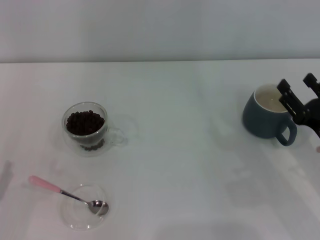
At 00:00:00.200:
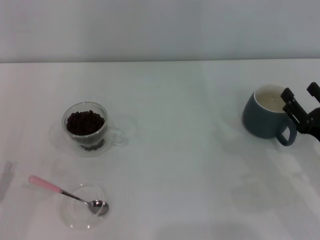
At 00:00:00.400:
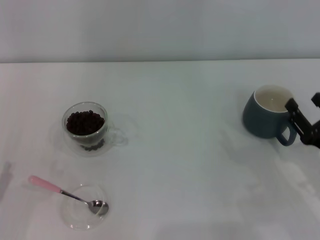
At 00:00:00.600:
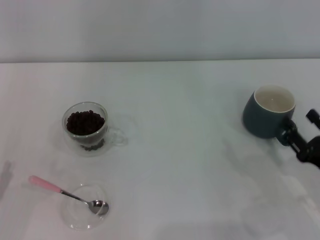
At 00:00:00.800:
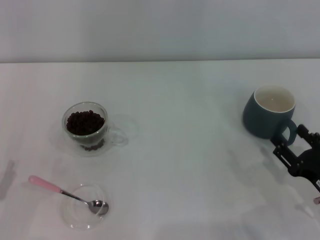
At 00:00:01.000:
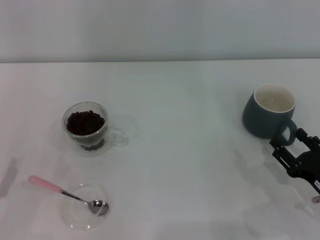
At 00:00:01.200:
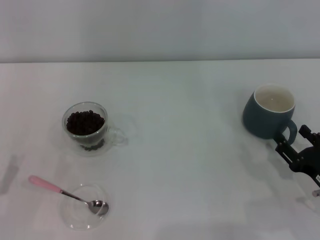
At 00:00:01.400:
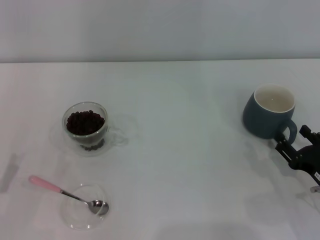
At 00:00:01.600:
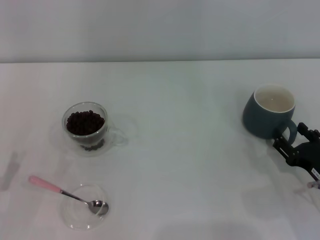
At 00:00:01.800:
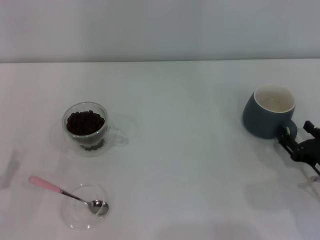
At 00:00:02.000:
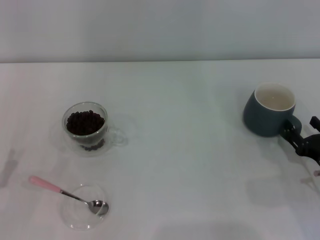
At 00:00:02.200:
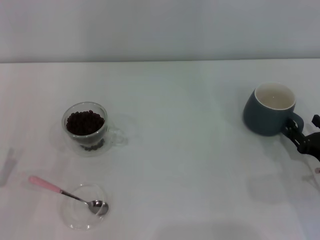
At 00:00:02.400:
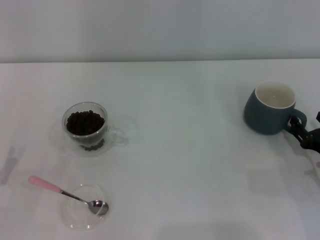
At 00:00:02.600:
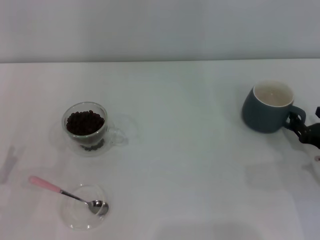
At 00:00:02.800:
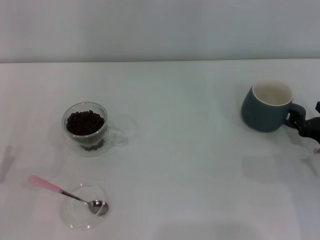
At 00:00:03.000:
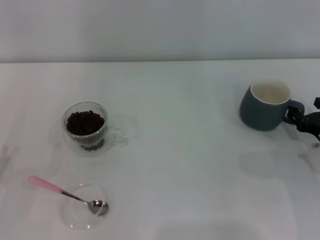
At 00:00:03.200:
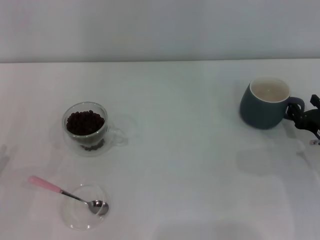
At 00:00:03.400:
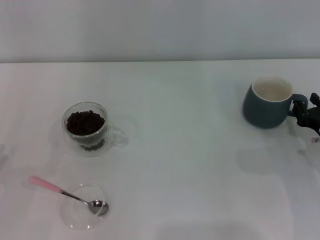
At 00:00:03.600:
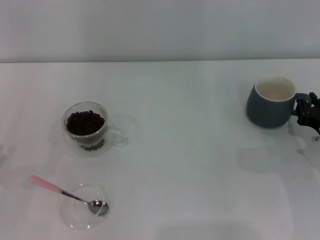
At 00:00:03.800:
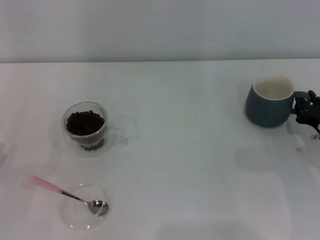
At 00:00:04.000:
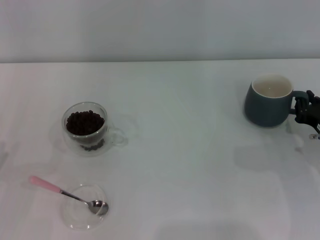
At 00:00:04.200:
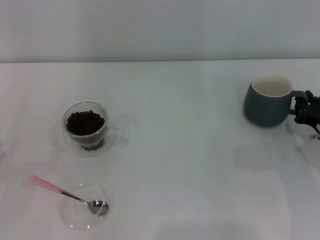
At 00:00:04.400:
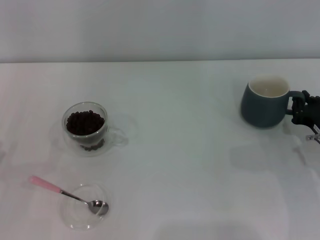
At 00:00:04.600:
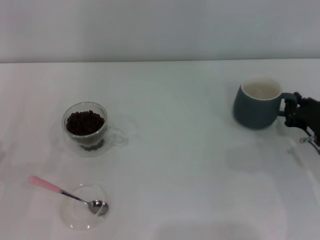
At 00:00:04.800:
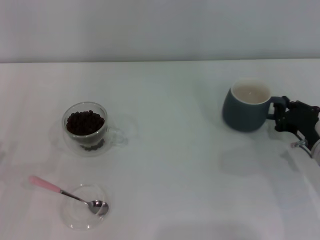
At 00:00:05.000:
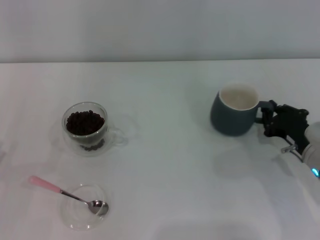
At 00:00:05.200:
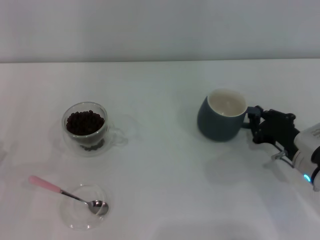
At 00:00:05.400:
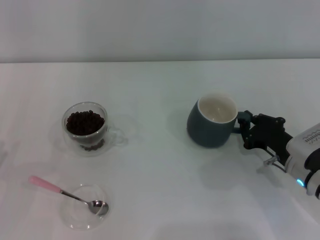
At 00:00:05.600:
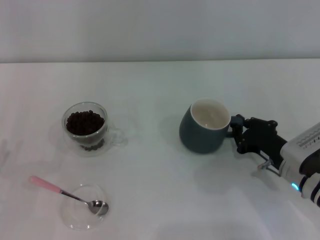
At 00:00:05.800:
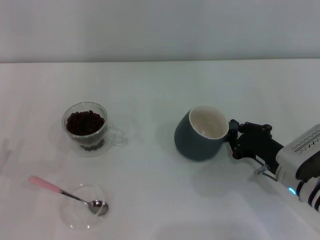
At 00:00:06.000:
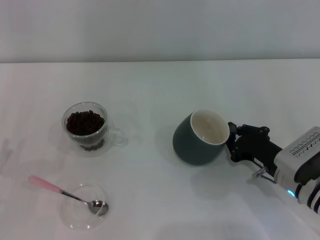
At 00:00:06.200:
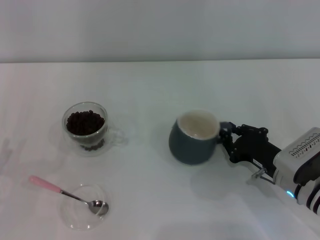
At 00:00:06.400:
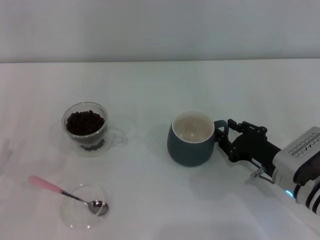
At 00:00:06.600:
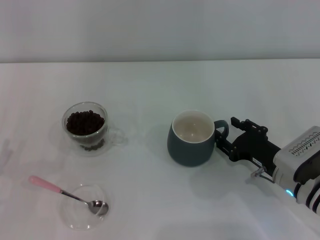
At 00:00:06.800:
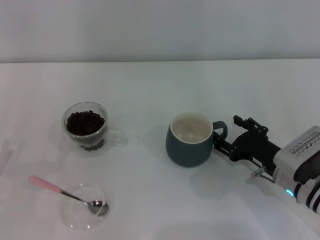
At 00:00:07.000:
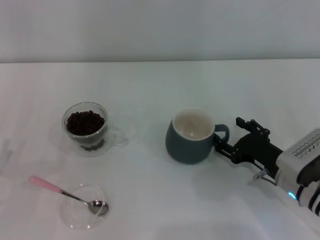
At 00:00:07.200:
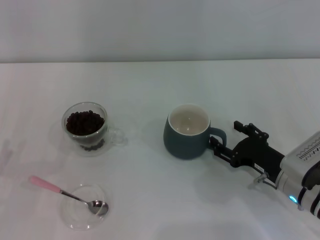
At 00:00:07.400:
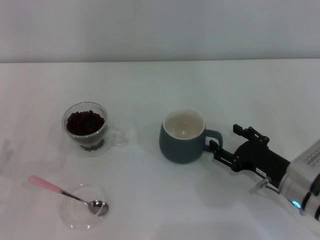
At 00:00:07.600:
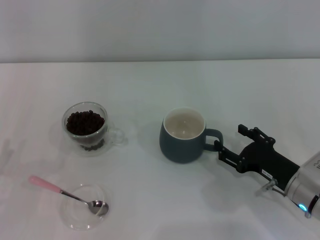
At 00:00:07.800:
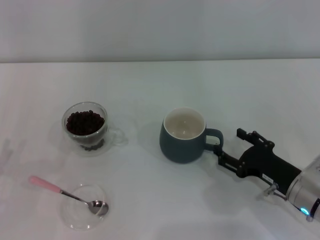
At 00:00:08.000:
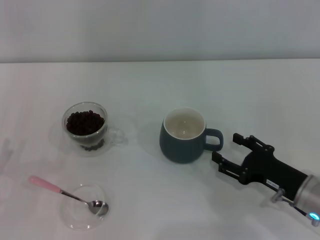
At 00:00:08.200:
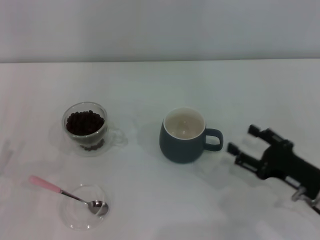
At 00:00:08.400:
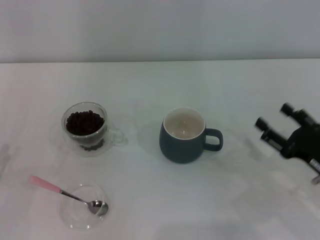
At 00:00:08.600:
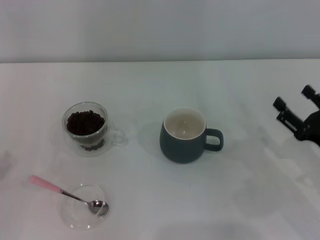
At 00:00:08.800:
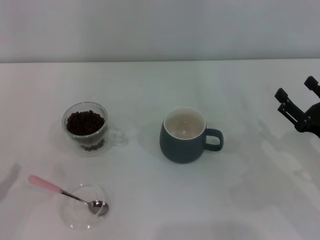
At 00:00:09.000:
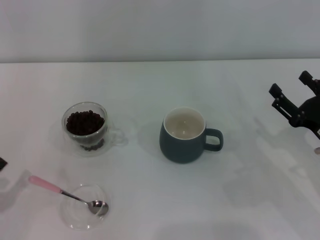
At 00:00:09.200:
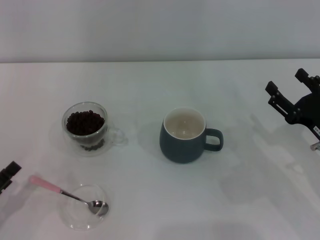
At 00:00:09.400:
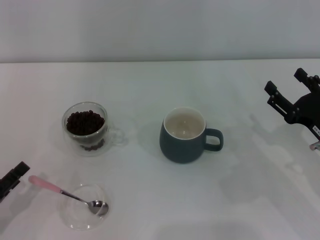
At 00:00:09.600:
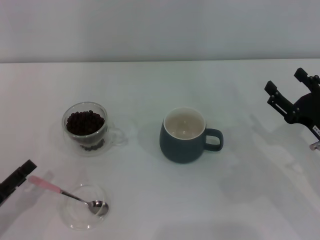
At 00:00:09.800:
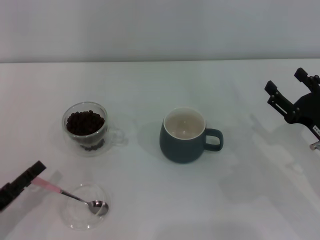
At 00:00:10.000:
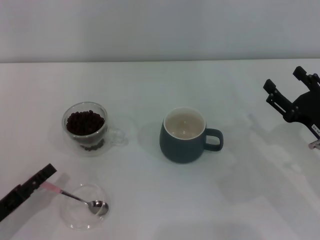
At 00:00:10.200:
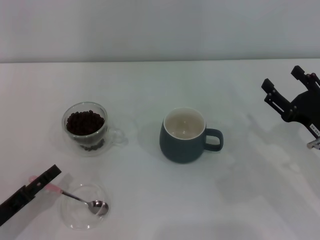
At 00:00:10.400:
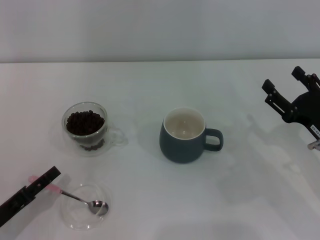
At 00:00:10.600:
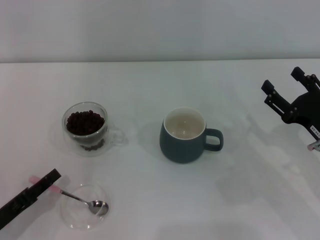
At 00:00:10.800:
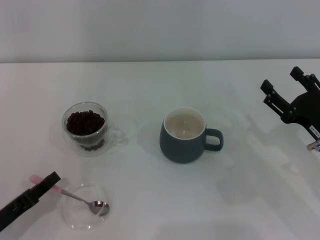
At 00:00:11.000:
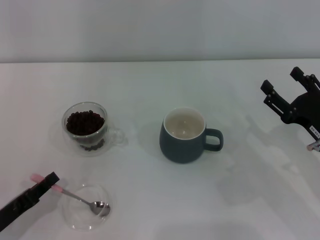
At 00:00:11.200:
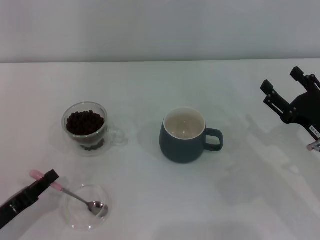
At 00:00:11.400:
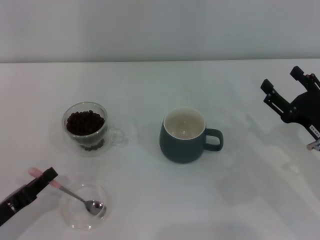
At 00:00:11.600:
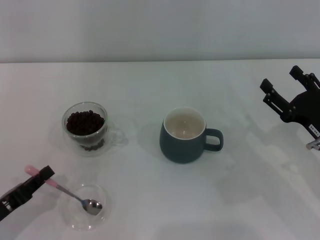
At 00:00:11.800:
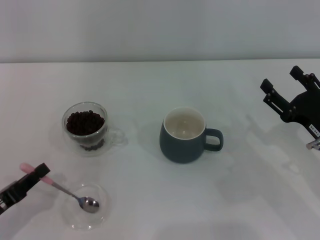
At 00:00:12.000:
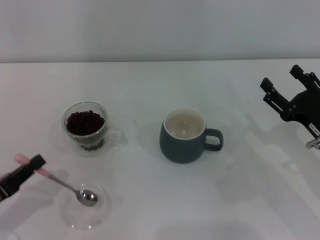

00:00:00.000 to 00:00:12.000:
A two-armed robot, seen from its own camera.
Task of the whole recording: Use a pink spoon to take out the coffee beans from the glass and pour them into the gray cup.
Step, 00:00:00.000 to 00:00:08.000: Move the cup to the center of view with the left gripper.
00:00:00.000 to 00:00:01.600: The right gripper shifts by about 5 cm.
00:00:01.600 to 00:00:03.000: The right gripper travels forward by approximately 5 cm.
00:00:03.000 to 00:00:04.400: The right gripper closes up.
00:00:04.400 to 00:00:06.000: The right gripper shifts approximately 10 cm to the left.
00:00:06.000 to 00:00:07.600: The right gripper opens its fingers.
00:00:07.600 to 00:00:09.000: The right gripper goes about 5 cm to the right.
00:00:09.000 to 00:00:10.400: The left gripper moves some 5 cm.
00:00:10.400 to 00:00:12.000: The left gripper closes its fingers.

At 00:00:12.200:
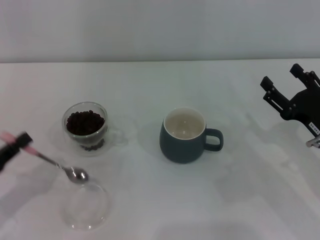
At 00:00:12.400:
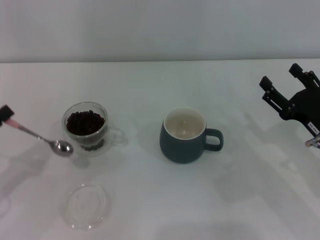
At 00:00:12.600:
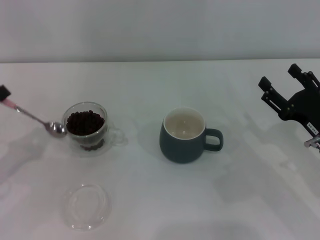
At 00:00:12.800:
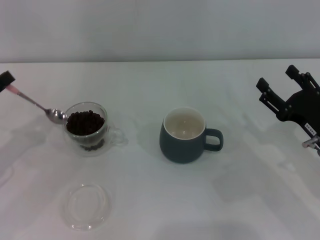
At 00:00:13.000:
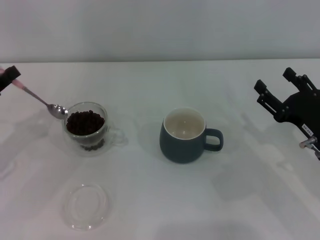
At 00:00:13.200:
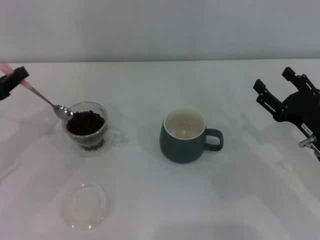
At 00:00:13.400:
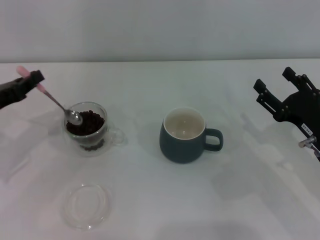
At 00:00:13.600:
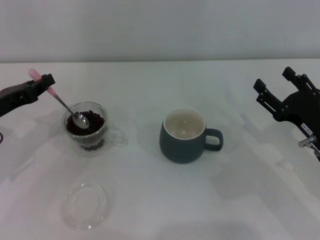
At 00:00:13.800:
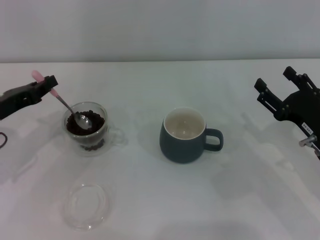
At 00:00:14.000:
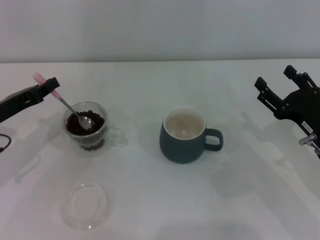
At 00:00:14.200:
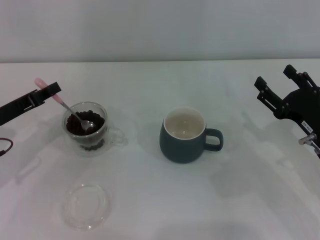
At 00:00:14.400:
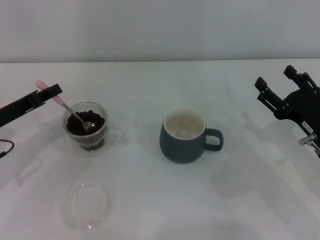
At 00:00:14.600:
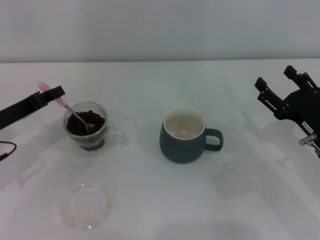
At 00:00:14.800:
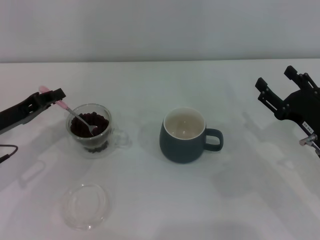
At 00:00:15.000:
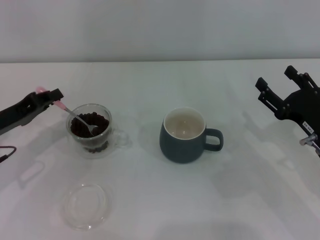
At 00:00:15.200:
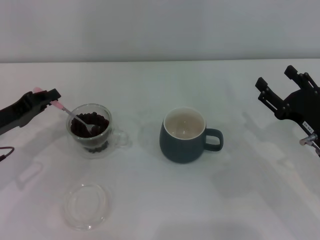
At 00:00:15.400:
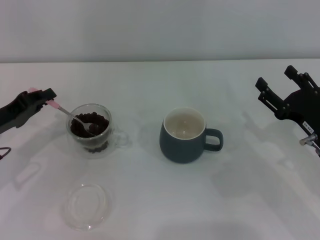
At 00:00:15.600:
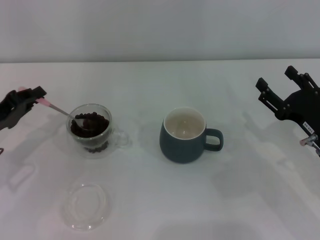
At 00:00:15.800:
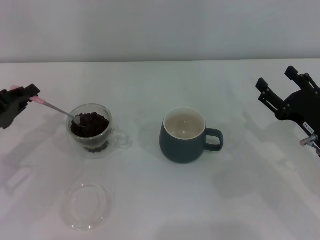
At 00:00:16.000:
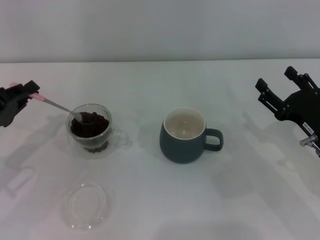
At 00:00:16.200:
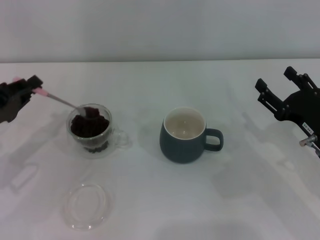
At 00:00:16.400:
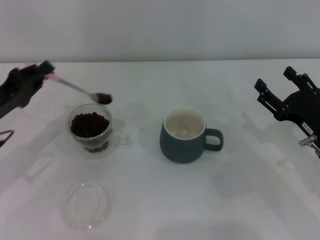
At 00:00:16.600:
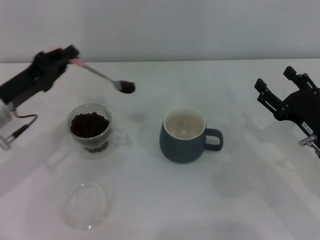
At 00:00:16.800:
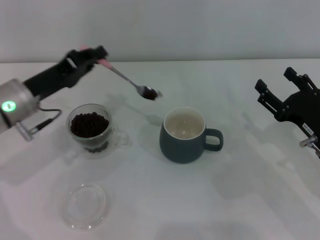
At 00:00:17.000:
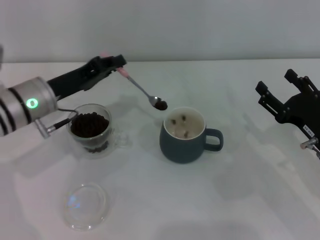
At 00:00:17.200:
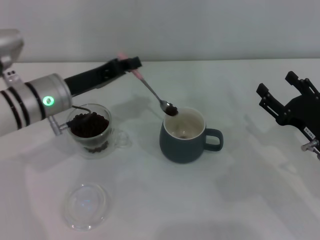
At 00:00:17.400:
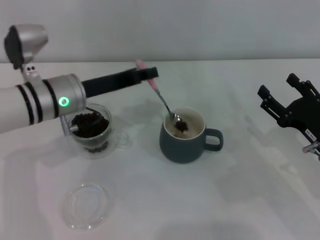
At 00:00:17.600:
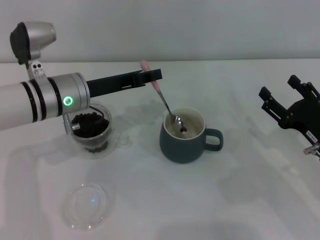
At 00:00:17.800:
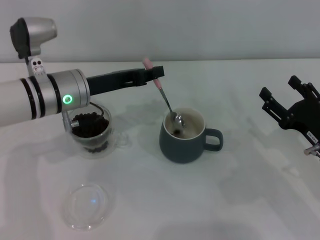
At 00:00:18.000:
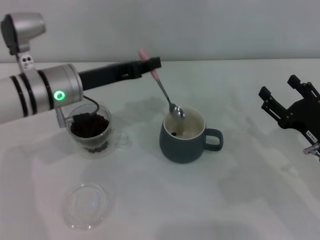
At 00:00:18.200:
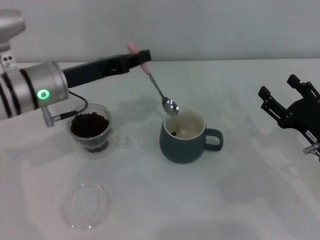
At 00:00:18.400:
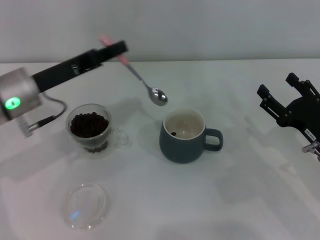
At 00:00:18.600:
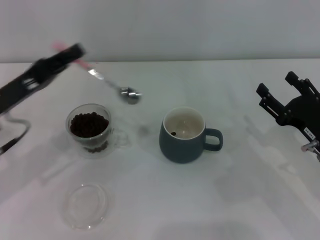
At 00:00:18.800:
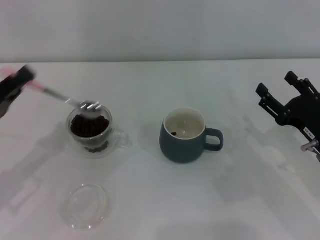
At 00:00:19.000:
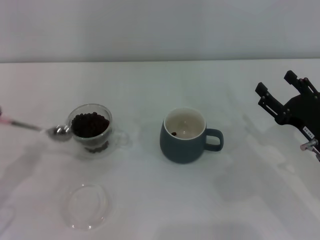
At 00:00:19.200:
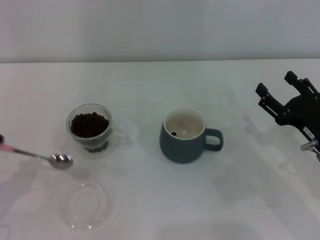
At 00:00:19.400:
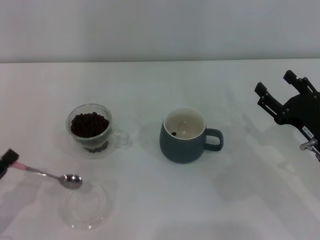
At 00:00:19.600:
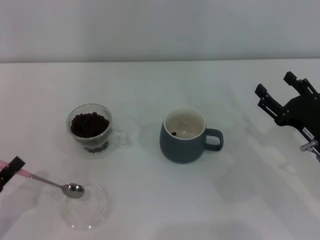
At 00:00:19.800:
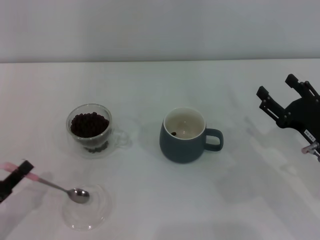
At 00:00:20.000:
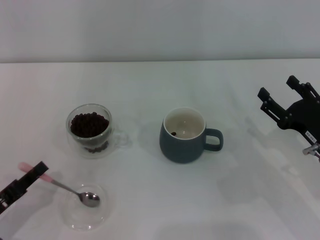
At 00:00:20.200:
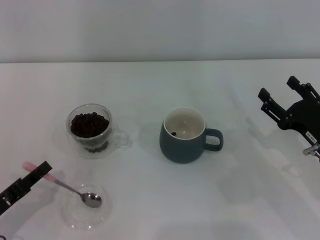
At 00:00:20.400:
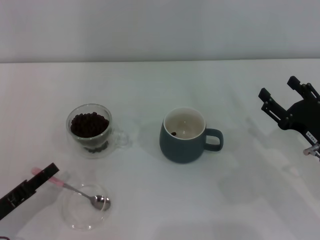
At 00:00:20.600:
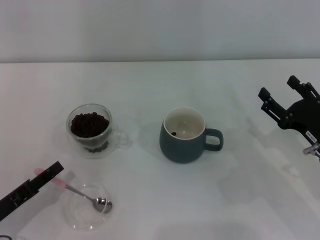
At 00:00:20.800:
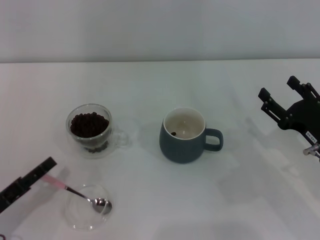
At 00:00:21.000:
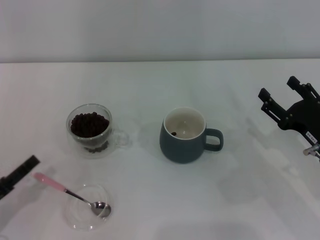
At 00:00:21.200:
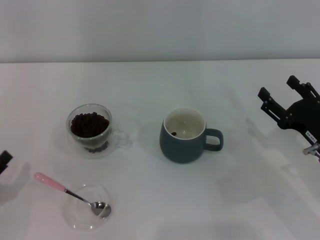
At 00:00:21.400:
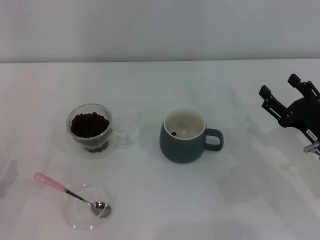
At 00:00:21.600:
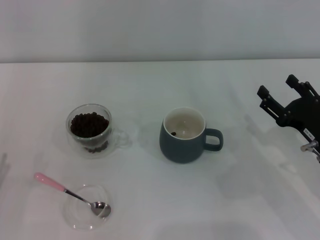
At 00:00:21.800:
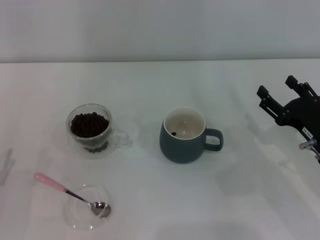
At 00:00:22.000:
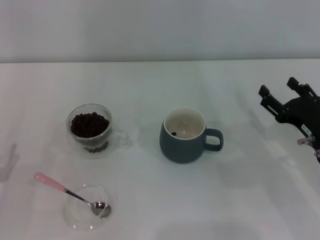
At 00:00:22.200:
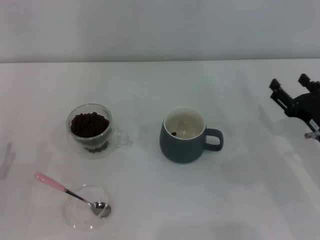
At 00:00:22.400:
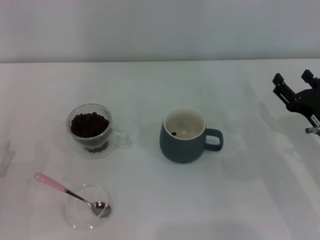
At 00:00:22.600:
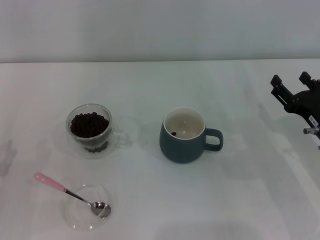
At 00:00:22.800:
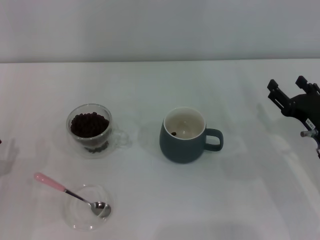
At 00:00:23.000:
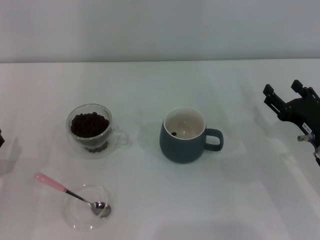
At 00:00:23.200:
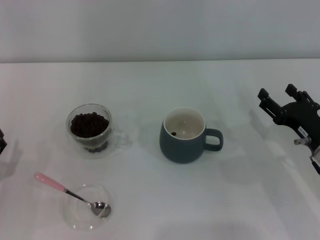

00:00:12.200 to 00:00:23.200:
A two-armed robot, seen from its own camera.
Task of the whole recording: Use a pink spoon to take out the coffee beans from the glass and pour them into the gray cup.
00:00:12.200 to 00:00:13.800: The left gripper moves forward, approximately 15 cm.
00:00:15.400 to 00:00:17.000: The left gripper heads to the right, covering about 10 cm.
00:00:18.400 to 00:00:20.000: The left gripper moves backward, downward and to the left, roughly 25 cm.
00:00:20.000 to 00:00:21.600: The left gripper opens.
00:00:21.600 to 00:00:23.200: The grippers stay close to where they were, moving slightly.
